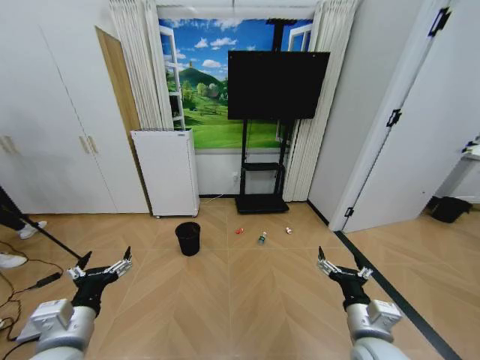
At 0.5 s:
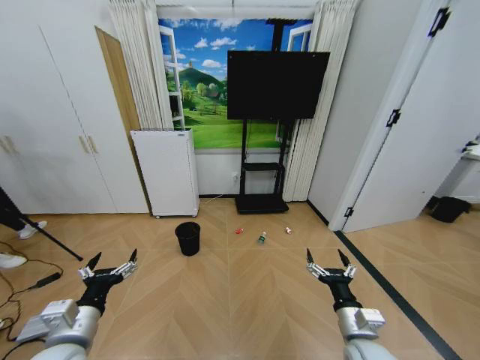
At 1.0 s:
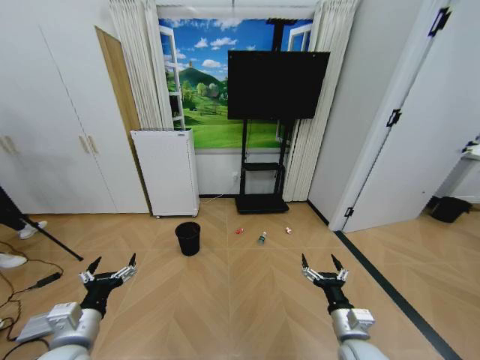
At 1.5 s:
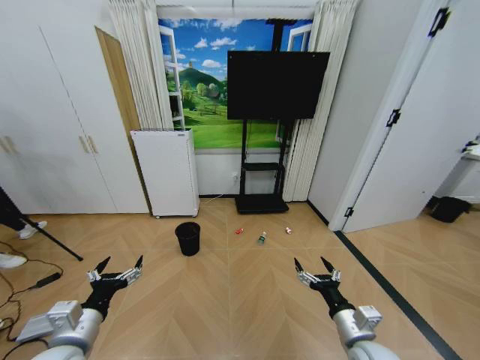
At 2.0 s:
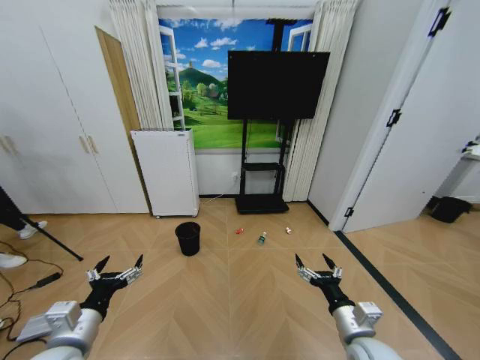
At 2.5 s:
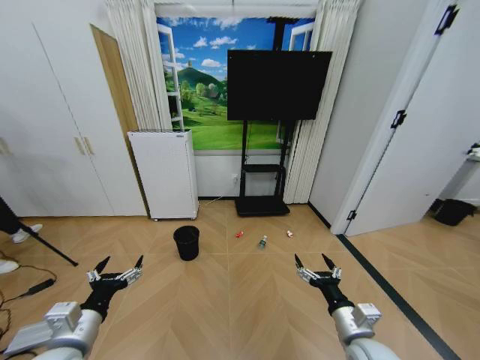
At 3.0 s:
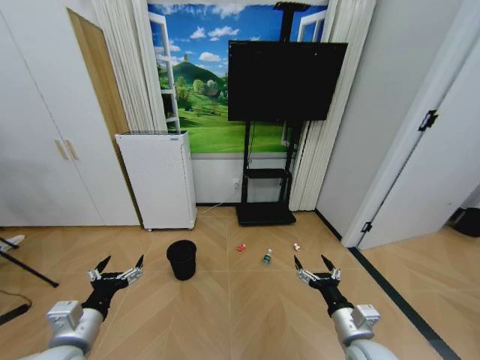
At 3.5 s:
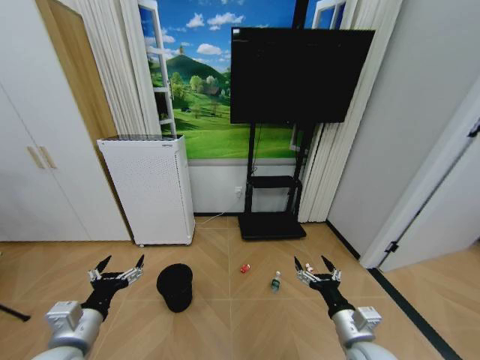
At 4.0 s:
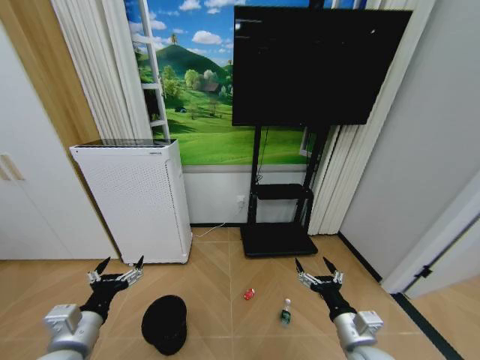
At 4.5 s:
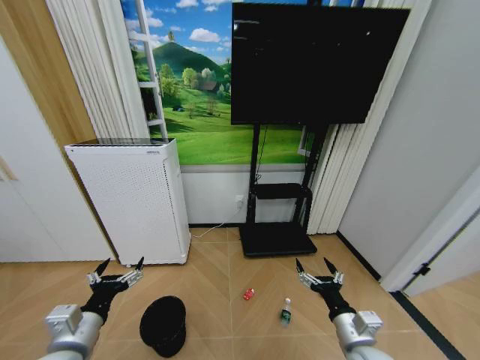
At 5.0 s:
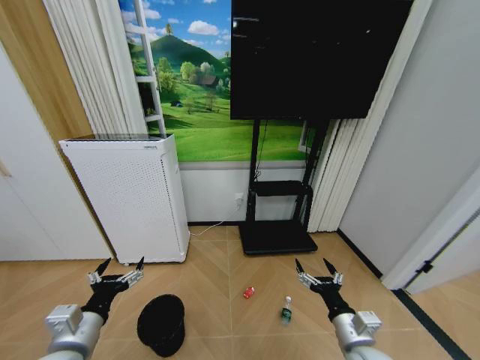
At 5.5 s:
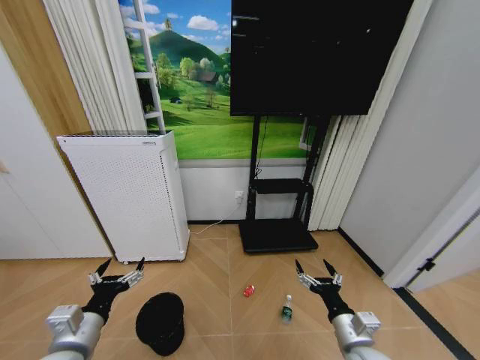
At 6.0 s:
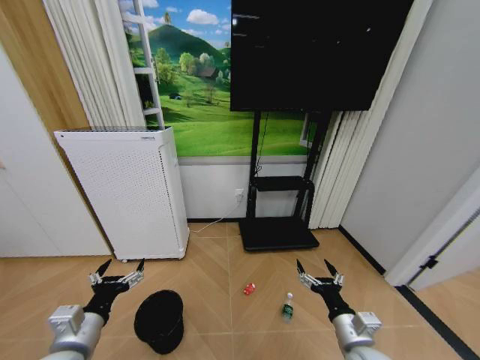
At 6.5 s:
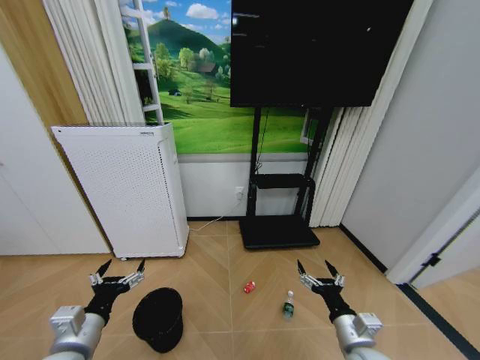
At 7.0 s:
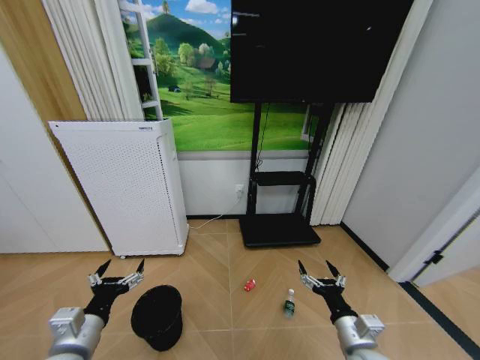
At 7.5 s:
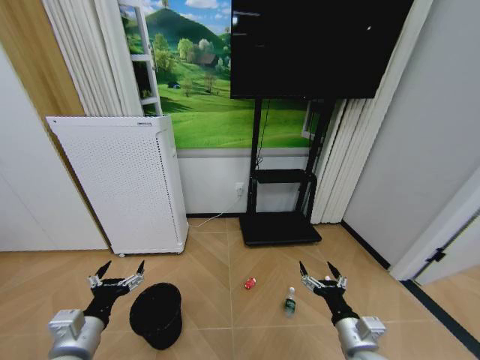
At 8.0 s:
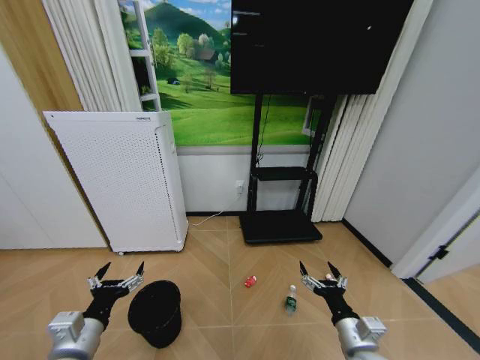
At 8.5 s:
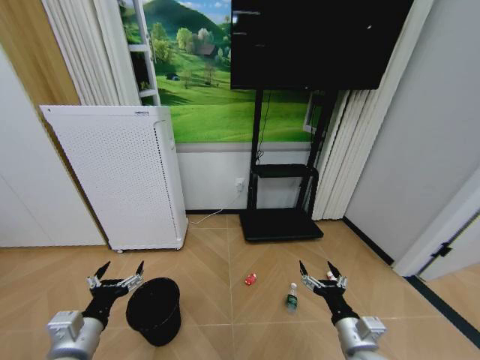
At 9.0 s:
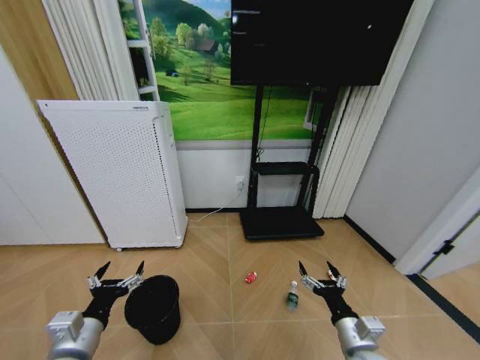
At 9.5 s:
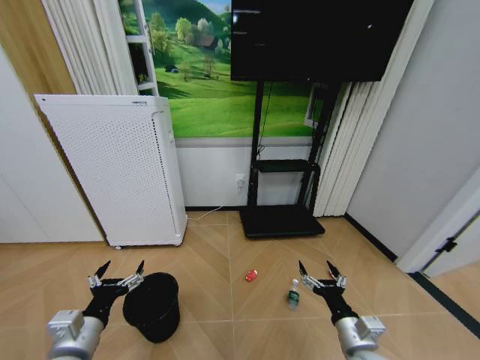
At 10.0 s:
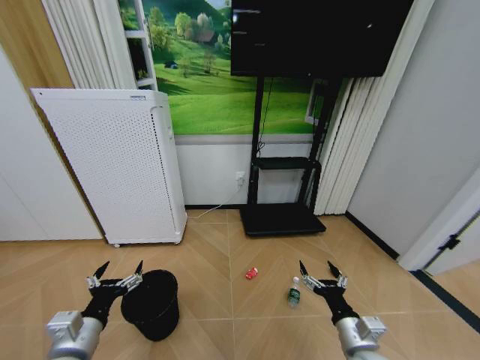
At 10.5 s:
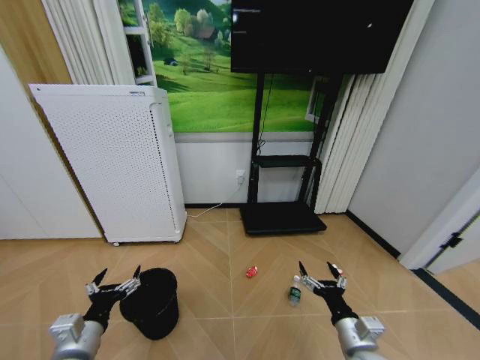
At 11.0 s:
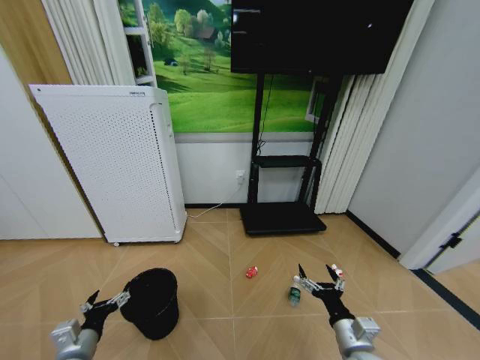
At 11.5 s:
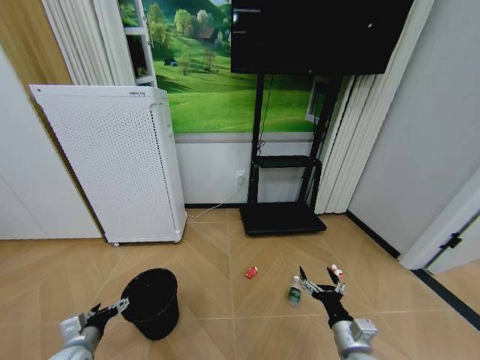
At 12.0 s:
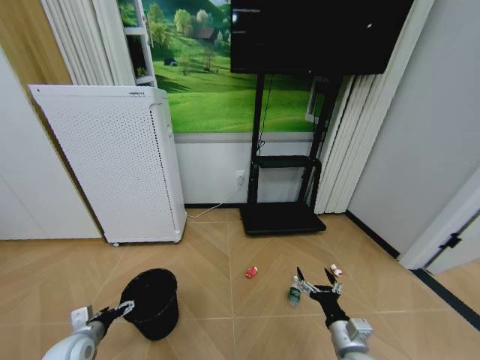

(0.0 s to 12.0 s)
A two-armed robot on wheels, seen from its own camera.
Task of the whole recording: Pick up the trash bin and place the garbage on the floor into it.
6.0 s - 10.0 s: Both grippers stay put.
10.0 s - 12.0 s: The left gripper goes some 15 cm downward, to the left and forward.

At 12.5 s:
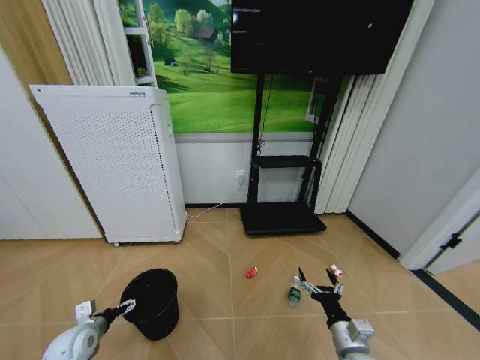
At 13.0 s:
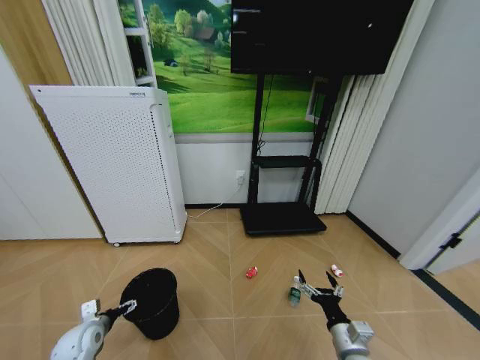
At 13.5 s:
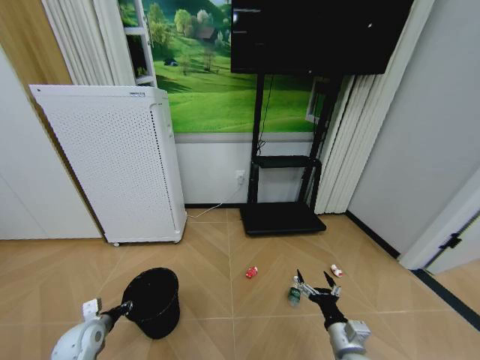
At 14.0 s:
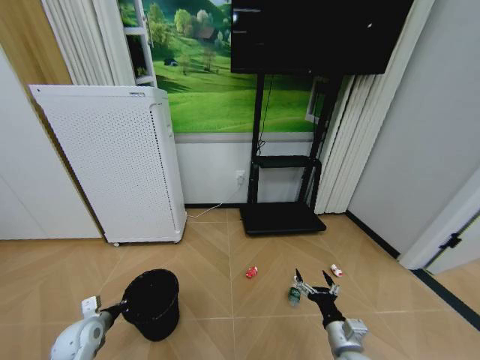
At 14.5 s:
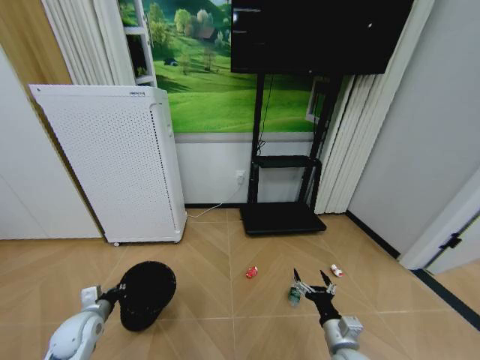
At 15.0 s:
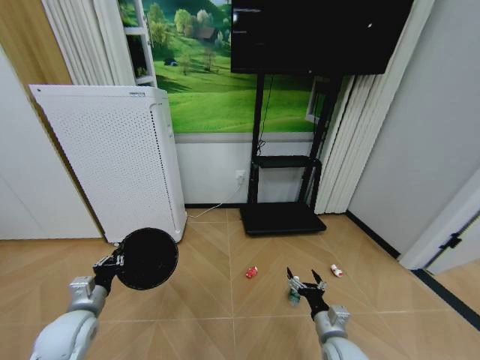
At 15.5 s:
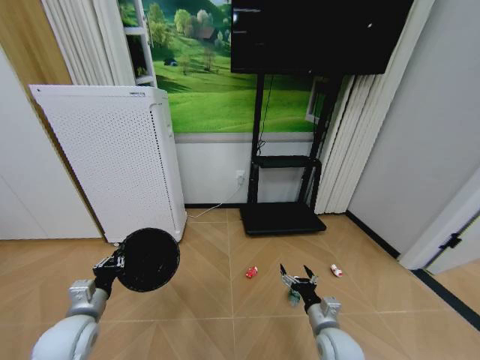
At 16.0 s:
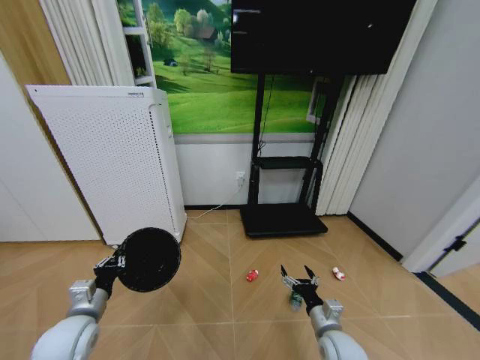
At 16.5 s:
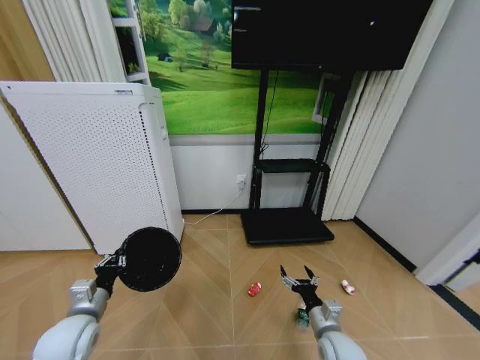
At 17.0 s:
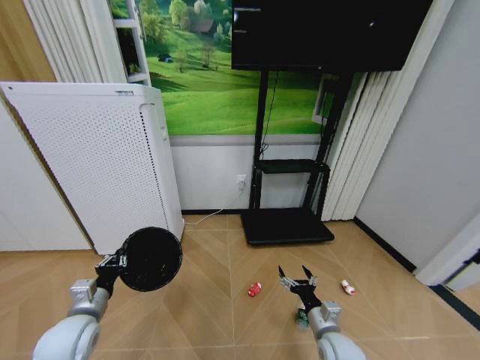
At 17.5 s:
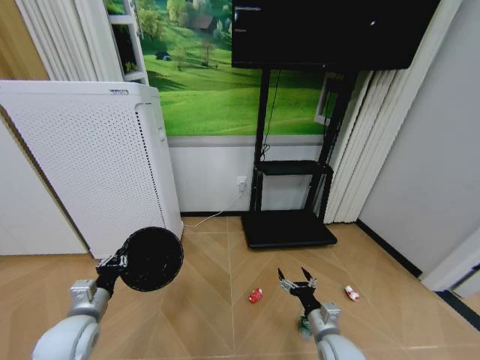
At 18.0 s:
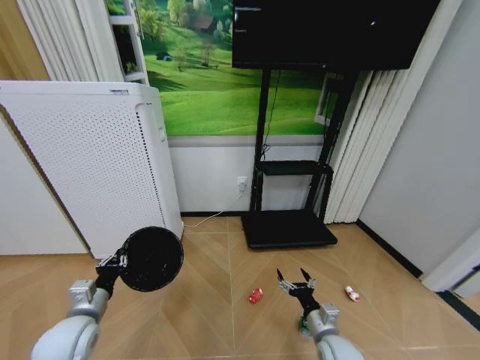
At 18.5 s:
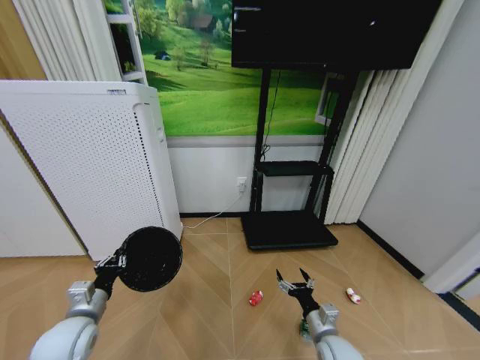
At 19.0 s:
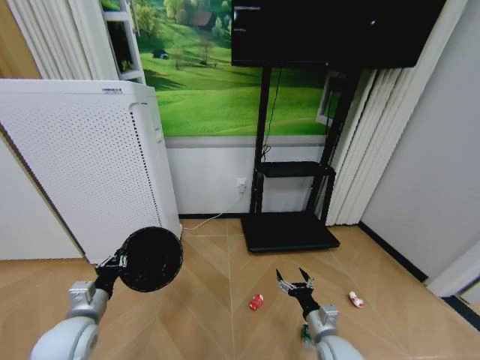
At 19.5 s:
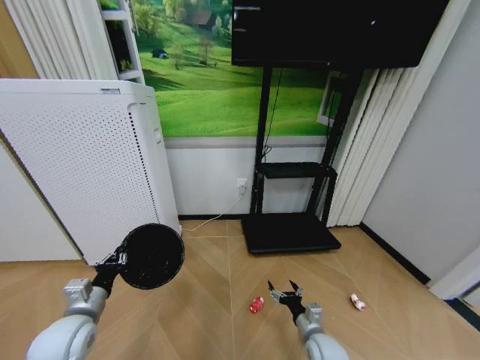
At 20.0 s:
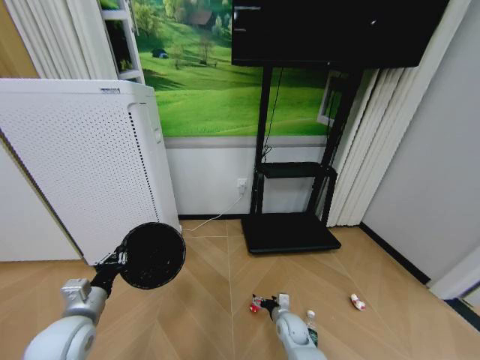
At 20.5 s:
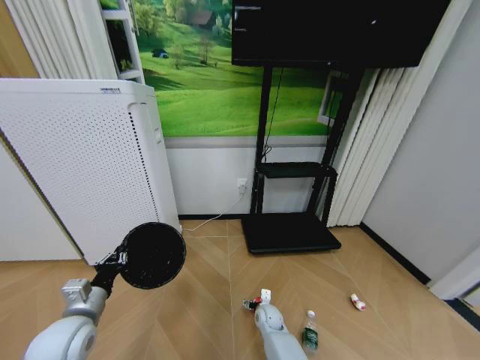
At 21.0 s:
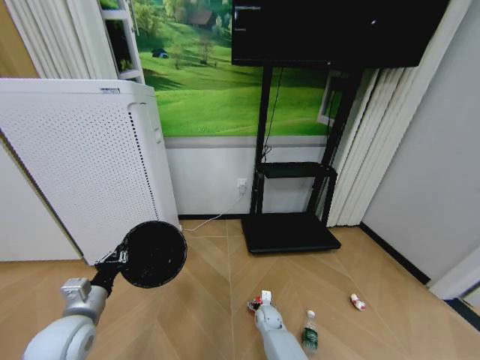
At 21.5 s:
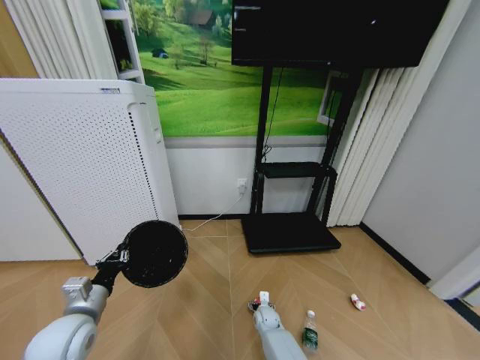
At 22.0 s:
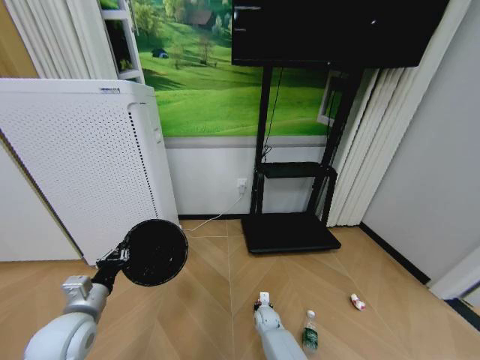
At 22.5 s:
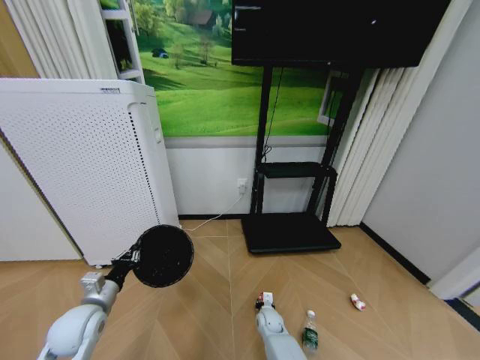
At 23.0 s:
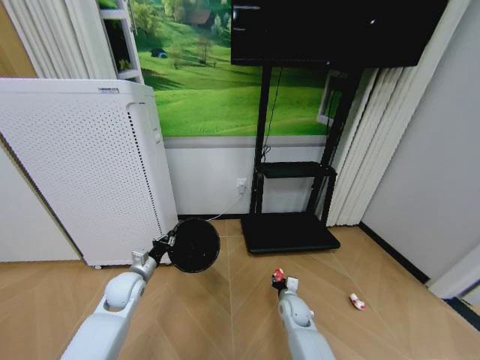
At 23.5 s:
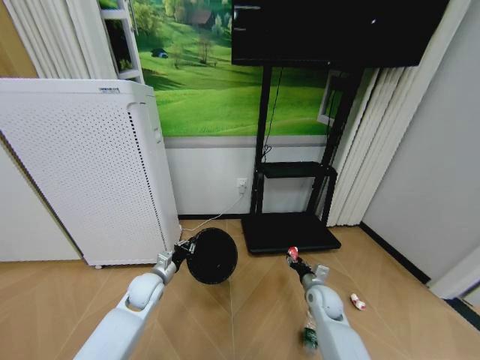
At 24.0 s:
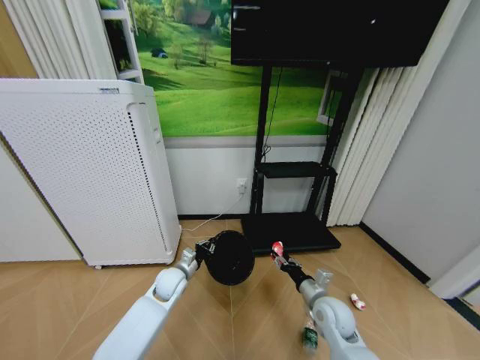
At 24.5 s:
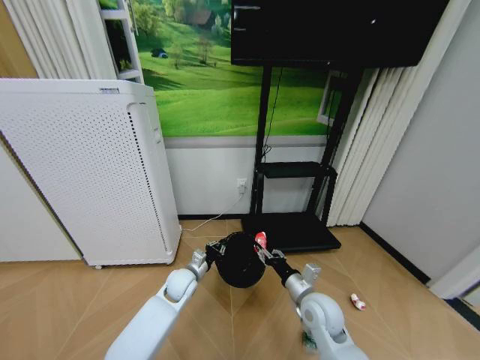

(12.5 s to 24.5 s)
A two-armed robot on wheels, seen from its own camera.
Task of the whole recording: Pick up the trash bin and place the garbage on the floor into it.
12.5 s - 14.5 s: The left gripper closes its fingers.
14.5 s - 16.5 s: The left gripper goes approximately 10 cm upward and to the right.
16.5 s - 18.5 s: Both grippers stay put.
18.5 s - 20.5 s: The right gripper is displaced downward, forward and to the left by roughly 25 cm.
20.5 s - 22.5 s: The left gripper shifts by some 5 cm, while the right gripper closes its fingers.
22.5 s - 24.5 s: The right gripper heads upward, covering roughly 25 cm; the left gripper shifts about 25 cm to the right and forward.

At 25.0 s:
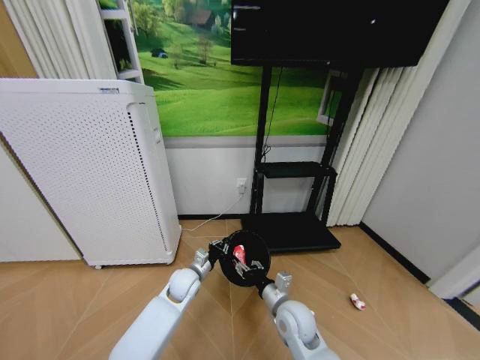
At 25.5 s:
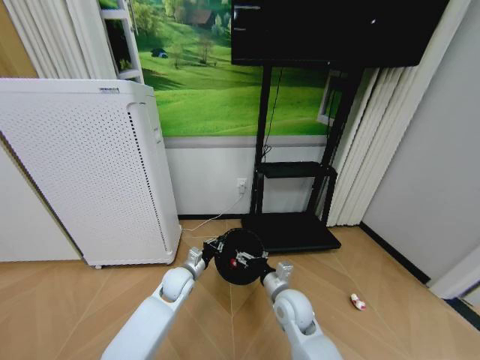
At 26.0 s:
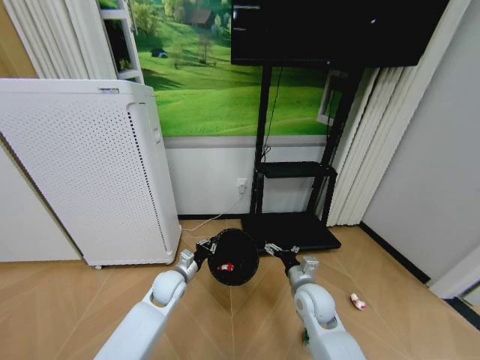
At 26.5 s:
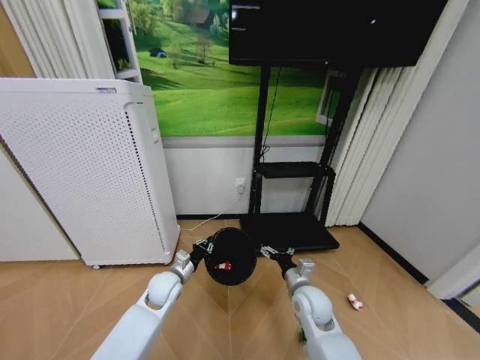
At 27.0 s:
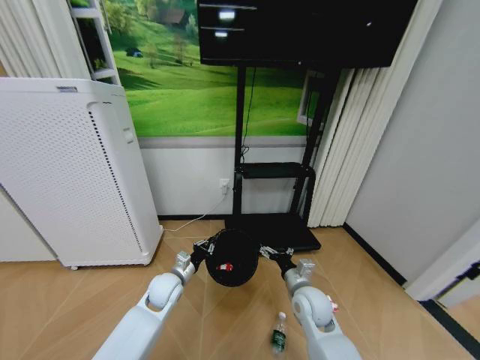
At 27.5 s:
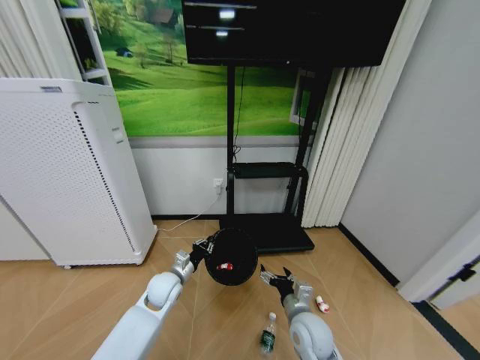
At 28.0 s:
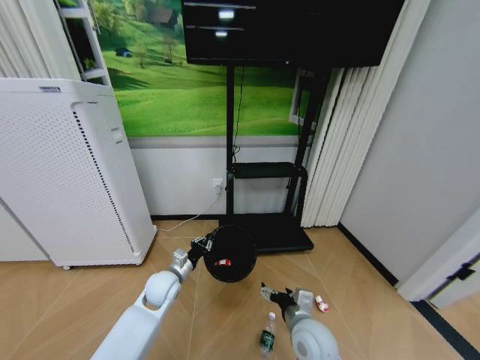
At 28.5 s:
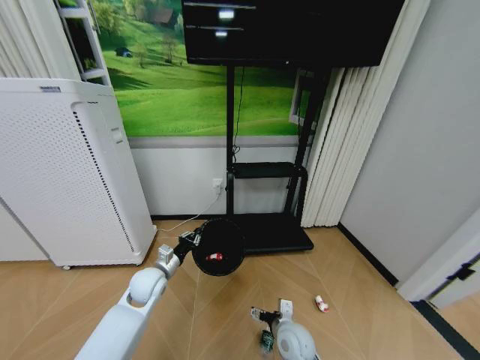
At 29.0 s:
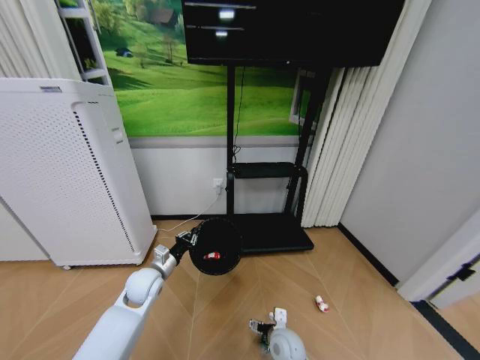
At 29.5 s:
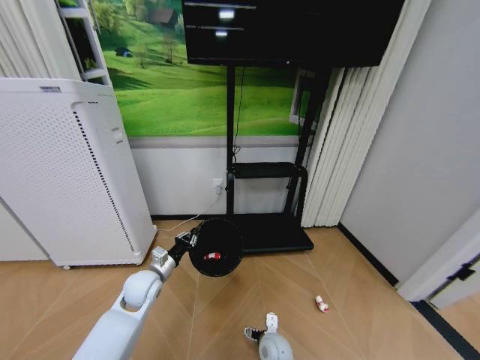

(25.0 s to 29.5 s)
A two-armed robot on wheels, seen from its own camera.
Task of the whole recording: Pick up the trash bin and place the garbage on the floor into it.
25.0 s - 27.0 s: The left gripper moves to the left, some 5 cm; the right gripper shifts about 5 cm to the right, and opens up.
27.0 s - 29.5 s: The right gripper moves downward and to the left, some 20 cm, while the left gripper is displaced to the left by about 5 cm.
